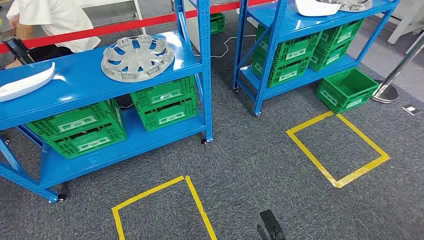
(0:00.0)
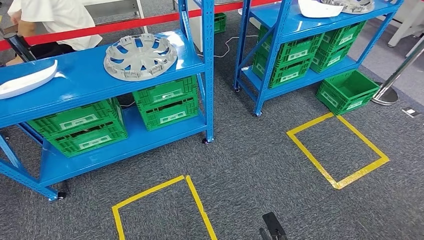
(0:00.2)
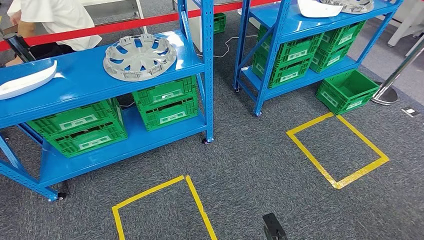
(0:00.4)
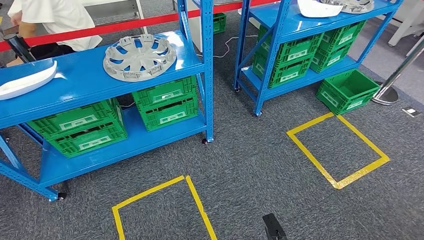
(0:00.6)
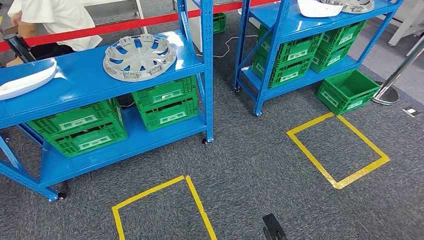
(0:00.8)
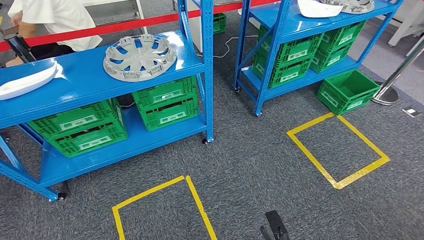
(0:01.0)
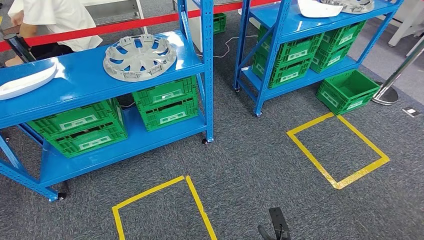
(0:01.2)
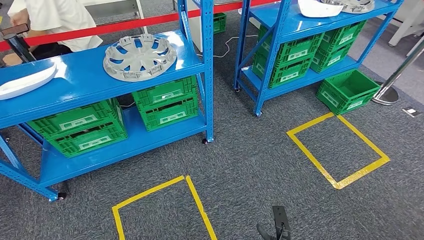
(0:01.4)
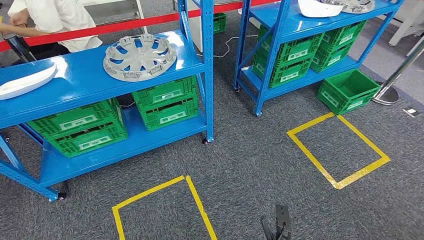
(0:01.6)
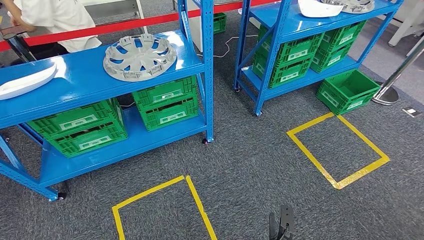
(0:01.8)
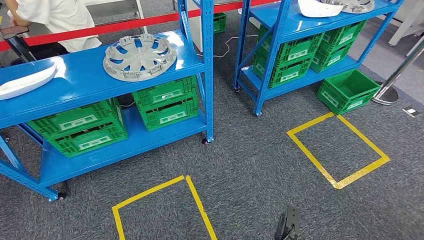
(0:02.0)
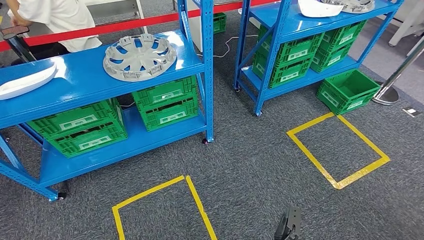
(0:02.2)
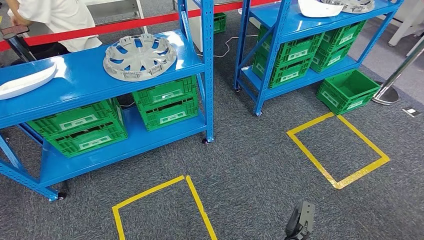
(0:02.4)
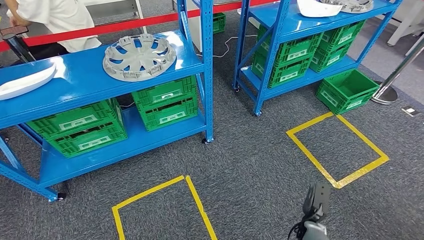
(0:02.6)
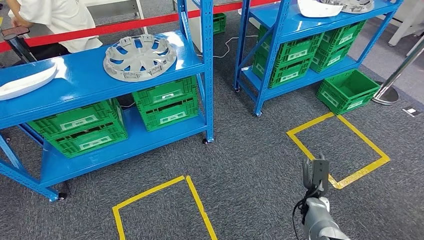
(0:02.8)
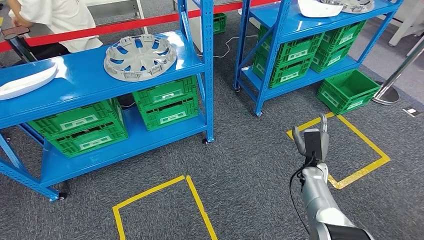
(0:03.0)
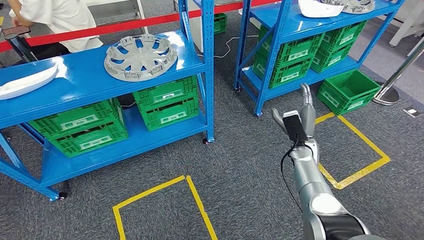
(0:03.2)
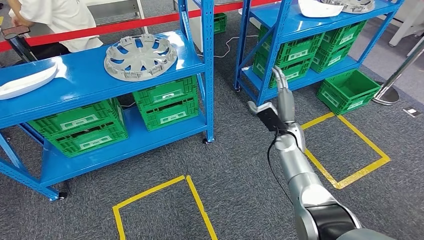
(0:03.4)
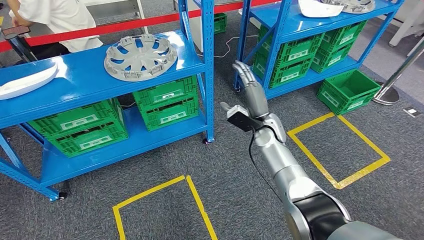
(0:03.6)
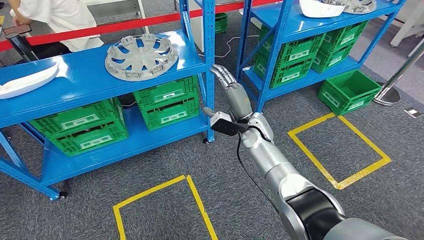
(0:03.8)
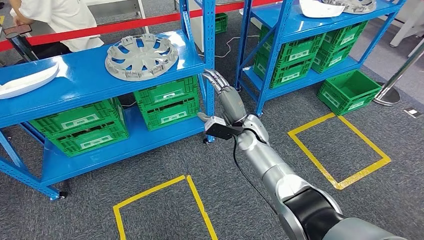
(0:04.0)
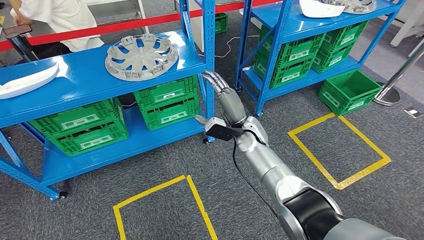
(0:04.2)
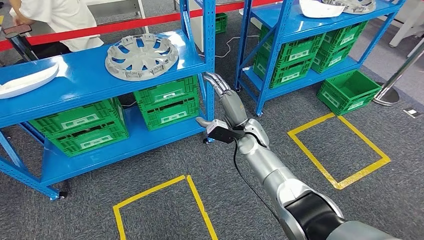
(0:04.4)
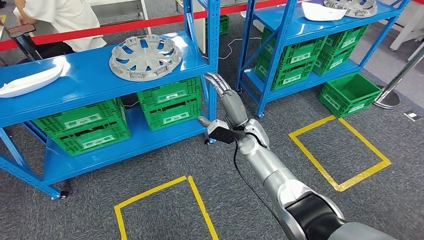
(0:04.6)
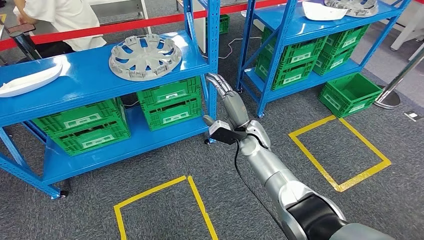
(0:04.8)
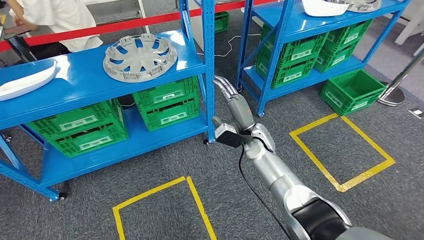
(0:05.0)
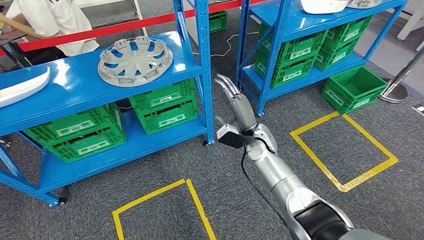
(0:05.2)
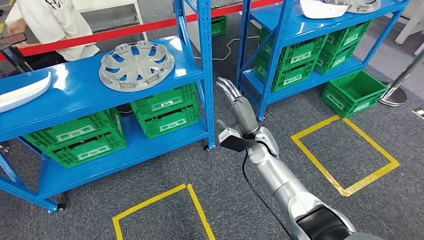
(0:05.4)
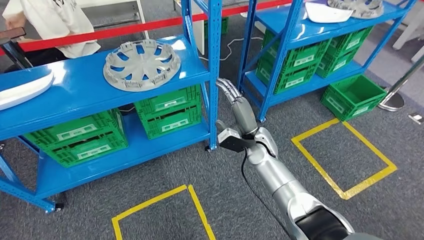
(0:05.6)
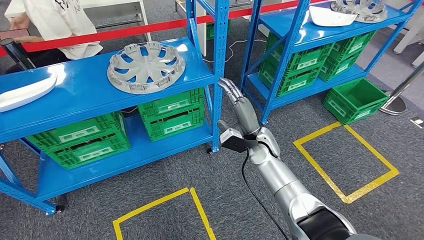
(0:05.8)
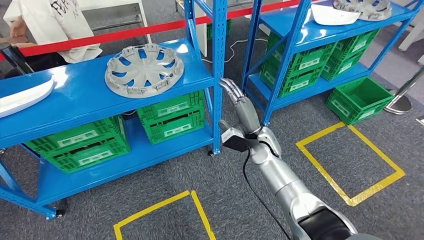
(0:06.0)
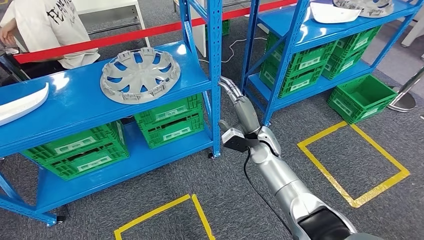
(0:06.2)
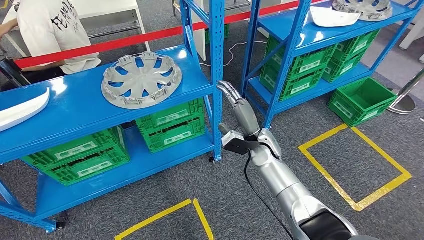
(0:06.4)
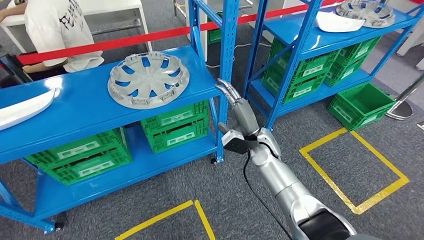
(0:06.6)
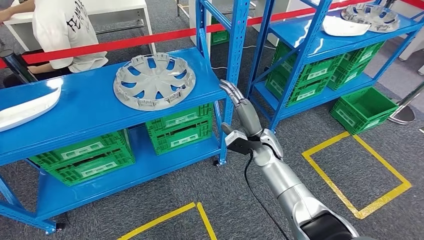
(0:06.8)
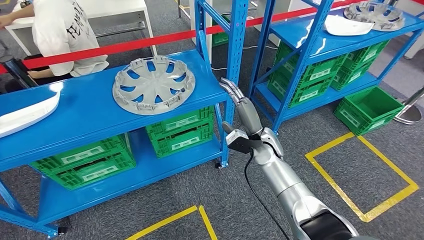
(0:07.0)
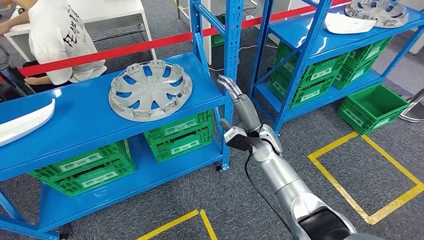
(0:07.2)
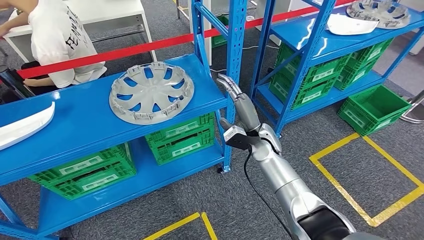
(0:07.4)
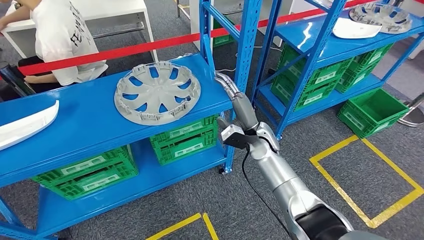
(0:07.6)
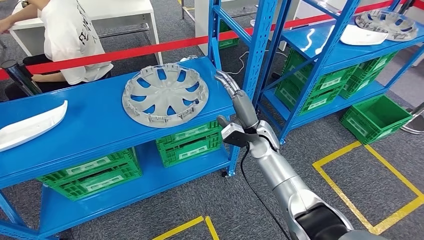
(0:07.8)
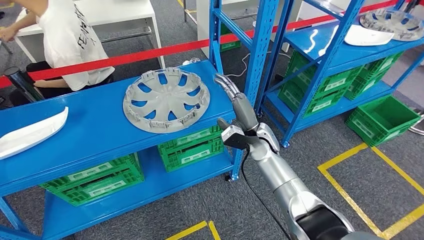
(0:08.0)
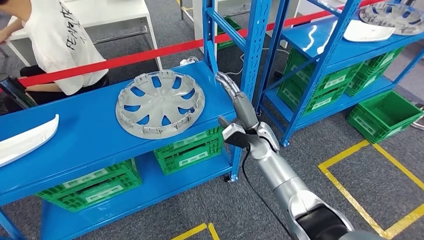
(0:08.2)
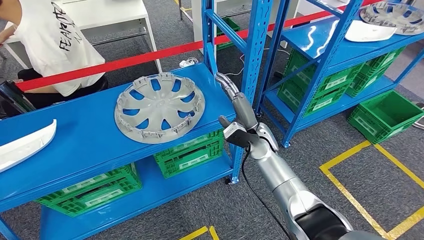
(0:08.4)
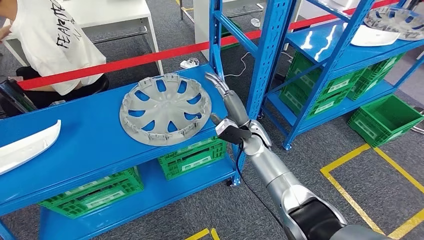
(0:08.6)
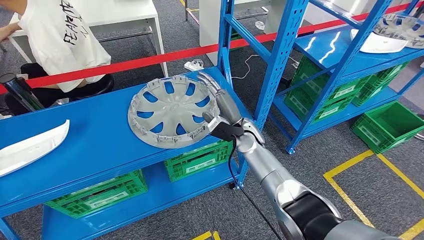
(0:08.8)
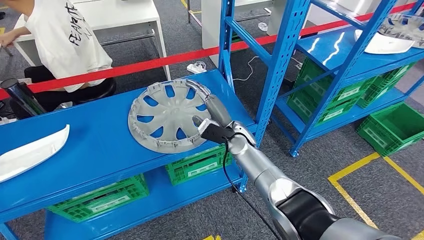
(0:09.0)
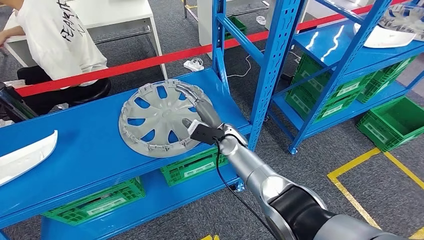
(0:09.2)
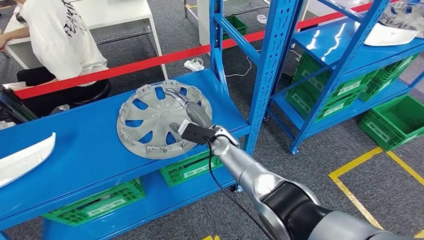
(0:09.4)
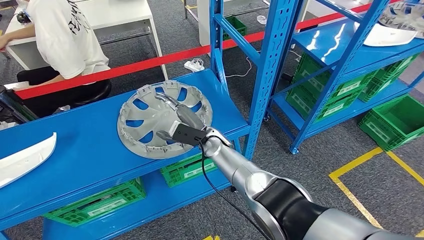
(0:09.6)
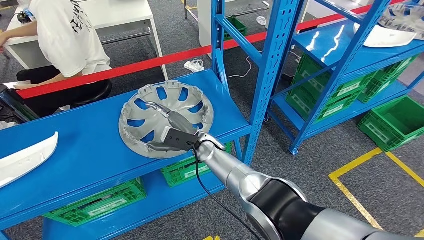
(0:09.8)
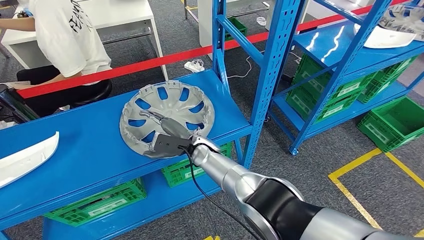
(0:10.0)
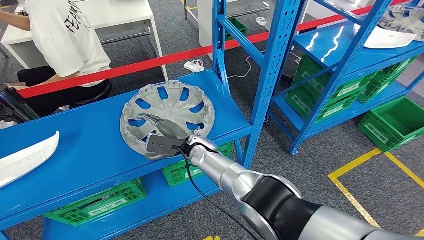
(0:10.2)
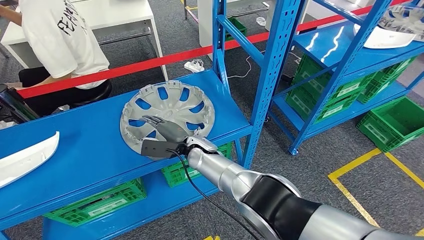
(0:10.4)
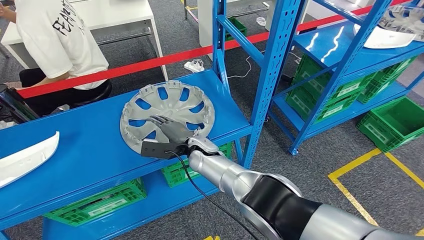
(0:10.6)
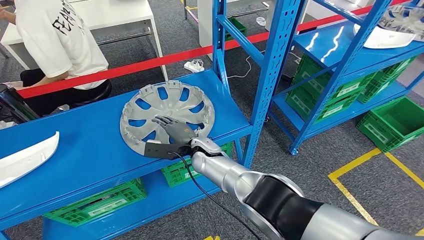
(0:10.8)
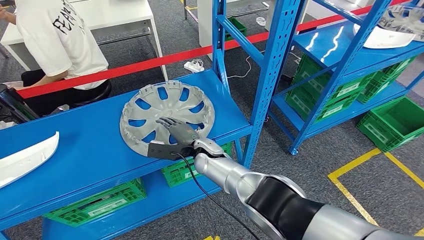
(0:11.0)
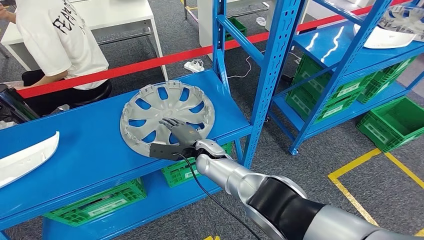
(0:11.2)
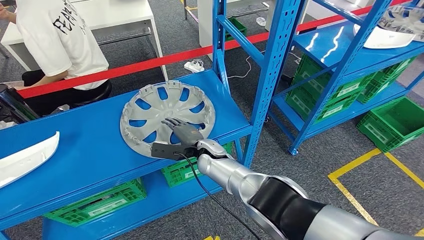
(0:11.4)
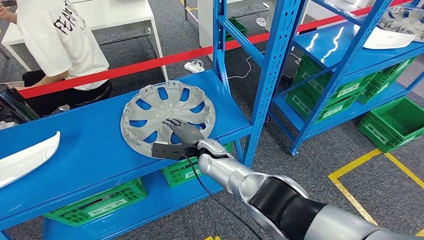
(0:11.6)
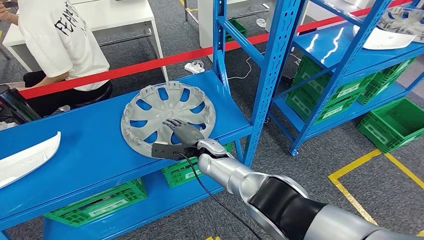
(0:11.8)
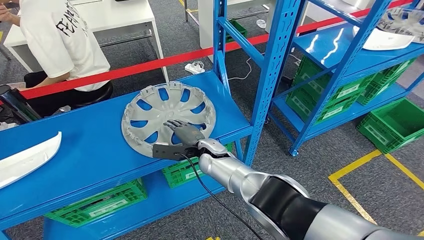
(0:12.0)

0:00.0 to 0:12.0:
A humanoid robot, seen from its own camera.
0:01.6 to 0:03.0: The right hand moves to the right, forward and upward, about 30 cm.
0:03.0 to 0:04.4: The right hand is displaced forward, to the left and upward by about 25 cm.

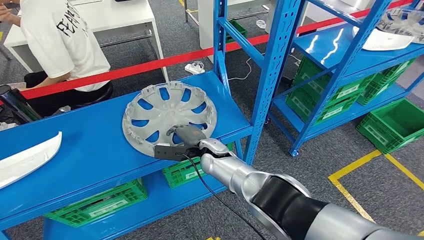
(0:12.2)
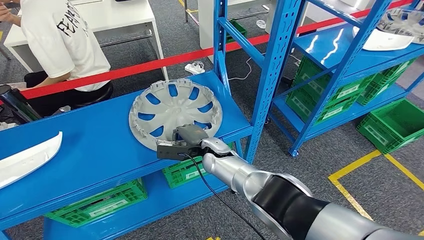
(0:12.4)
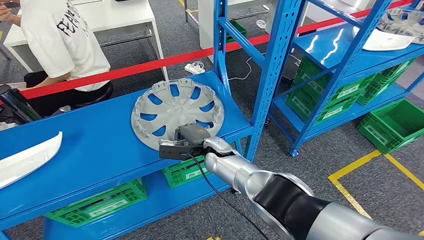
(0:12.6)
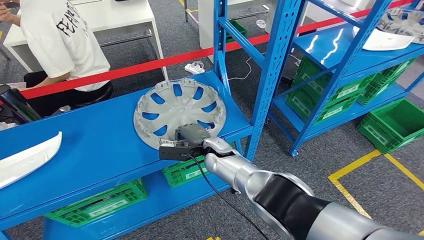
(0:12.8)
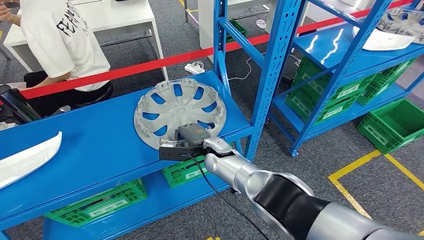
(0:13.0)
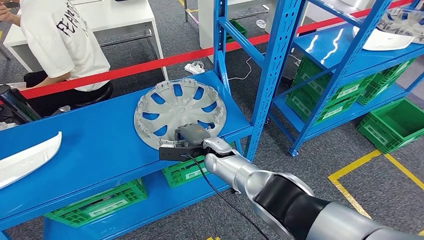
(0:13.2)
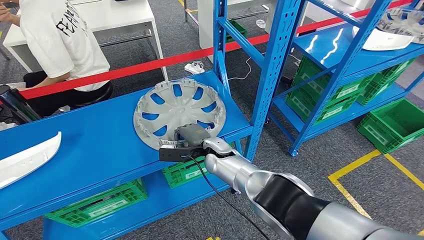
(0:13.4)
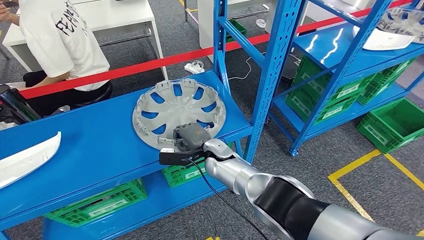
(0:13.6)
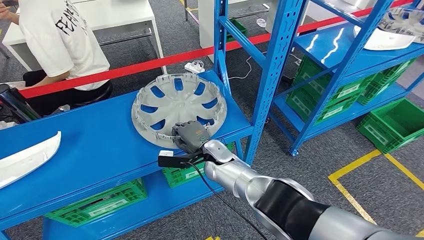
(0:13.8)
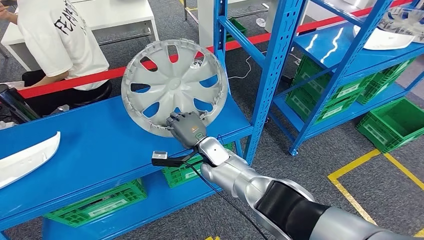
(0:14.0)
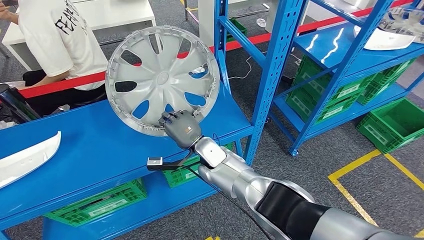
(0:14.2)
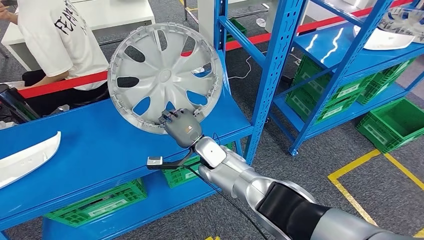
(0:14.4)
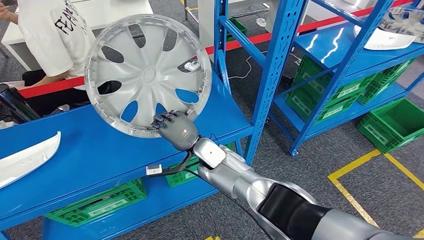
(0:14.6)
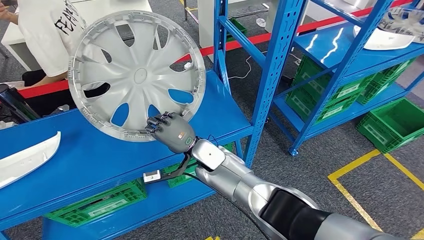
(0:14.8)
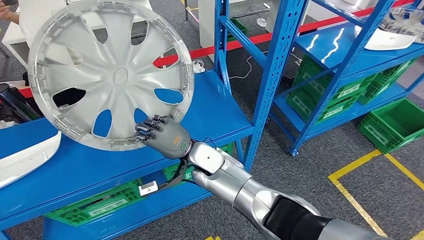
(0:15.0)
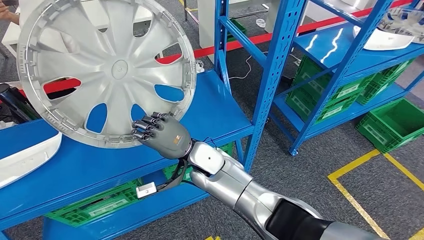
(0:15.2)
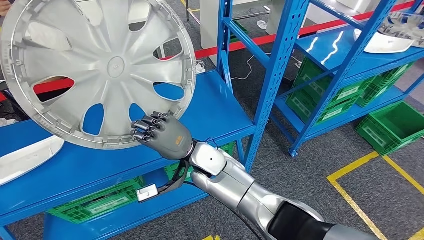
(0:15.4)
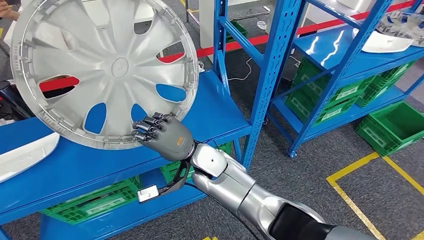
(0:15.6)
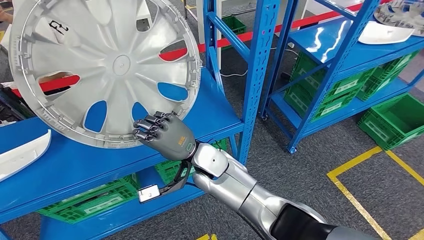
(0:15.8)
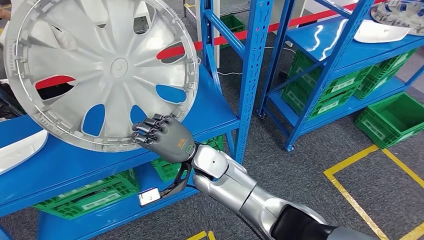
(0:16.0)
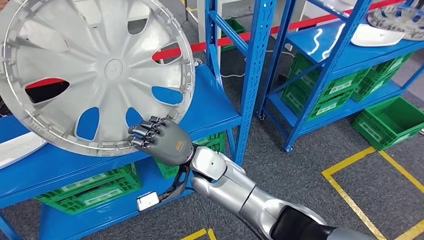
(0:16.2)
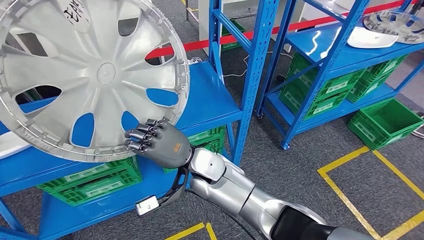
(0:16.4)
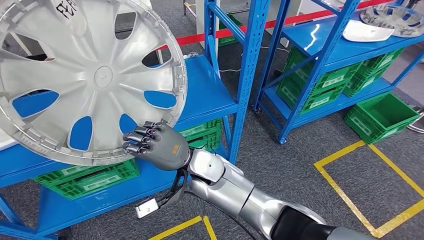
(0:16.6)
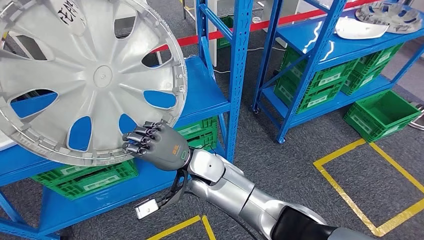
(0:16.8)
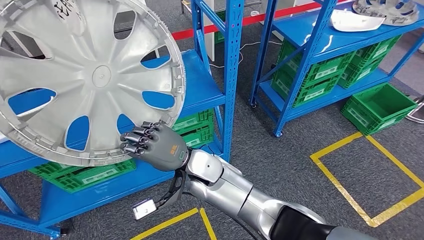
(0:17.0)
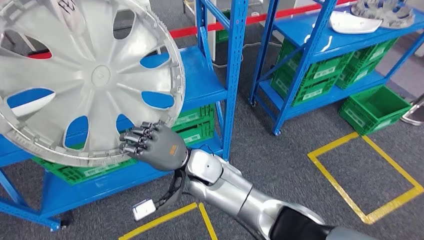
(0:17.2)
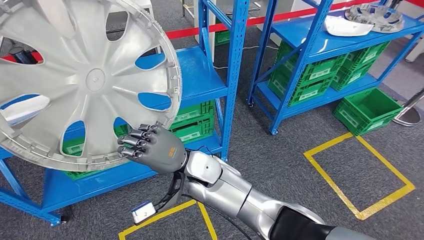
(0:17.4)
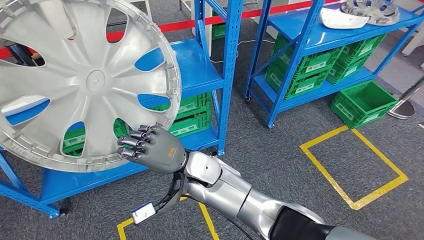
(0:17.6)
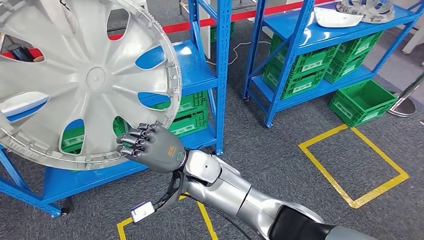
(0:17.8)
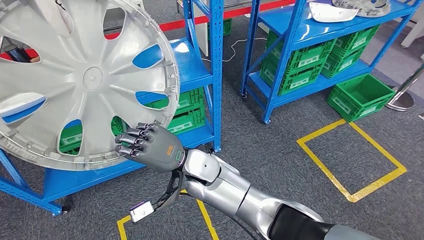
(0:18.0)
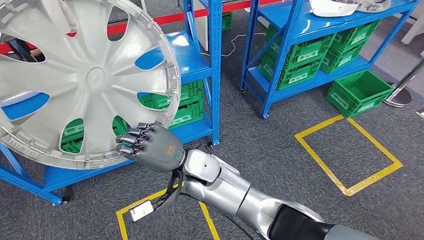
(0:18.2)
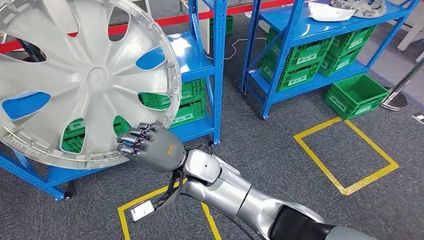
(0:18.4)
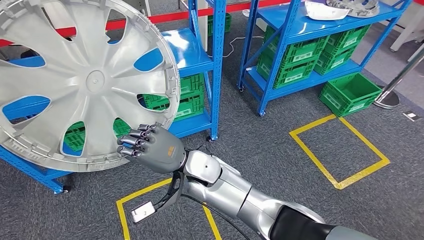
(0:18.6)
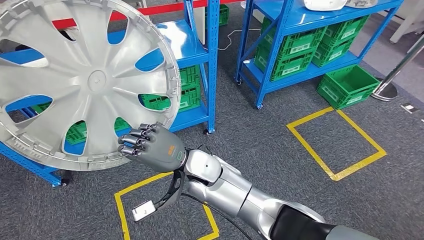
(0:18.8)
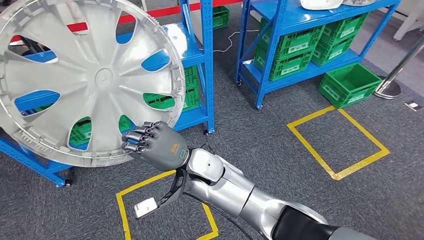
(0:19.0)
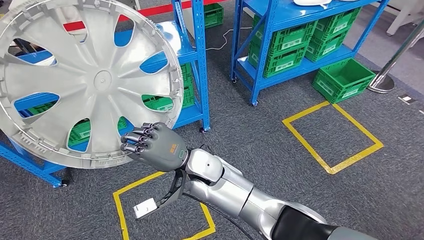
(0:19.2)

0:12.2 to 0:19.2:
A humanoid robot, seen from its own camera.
Step, 0:12.2 to 0:15.8: Pick up the small component from the shelf.
0:12.2 to 0:13.6: The hands stay close to where they were, moving slightly.
